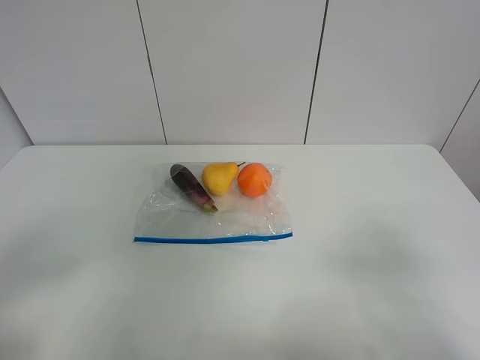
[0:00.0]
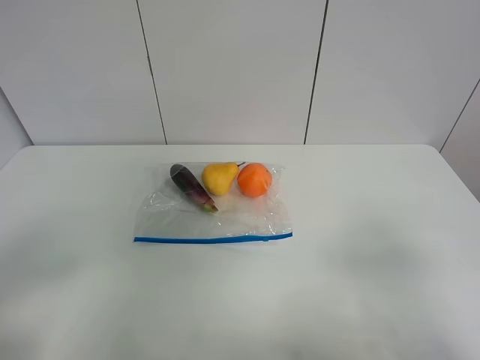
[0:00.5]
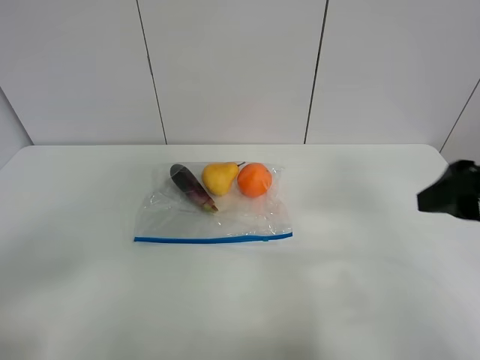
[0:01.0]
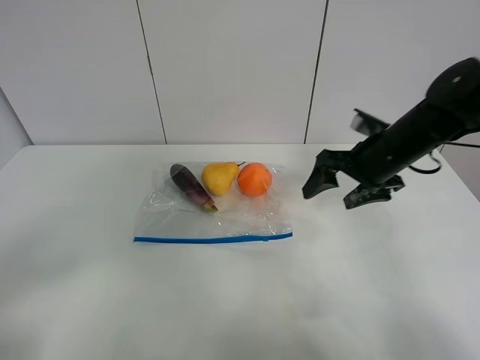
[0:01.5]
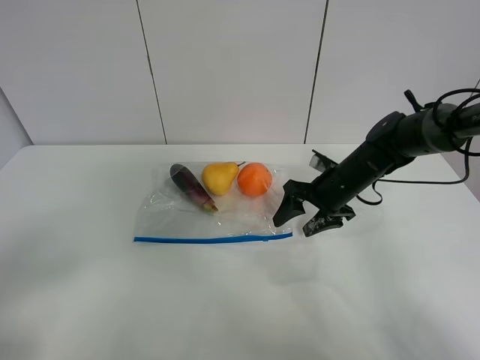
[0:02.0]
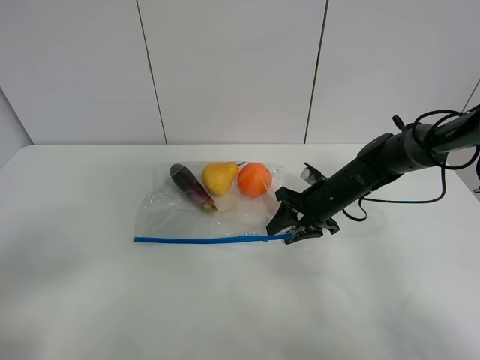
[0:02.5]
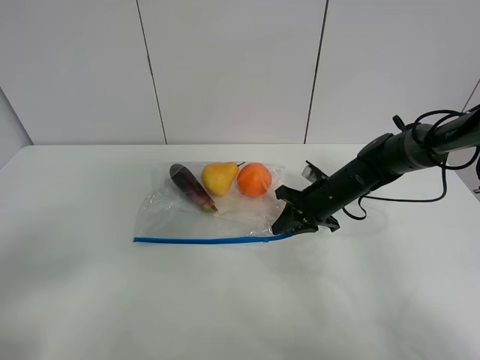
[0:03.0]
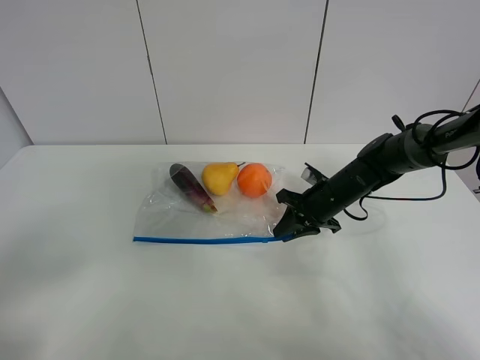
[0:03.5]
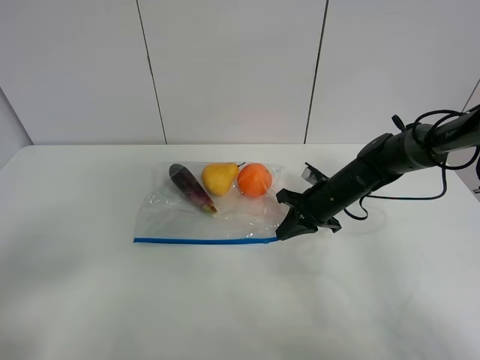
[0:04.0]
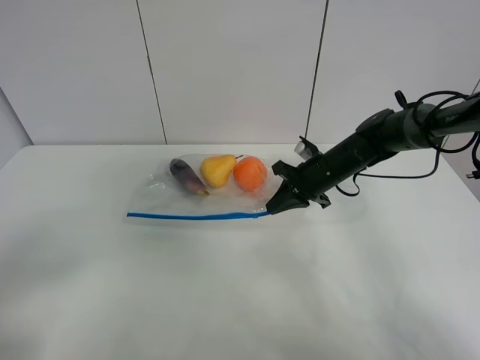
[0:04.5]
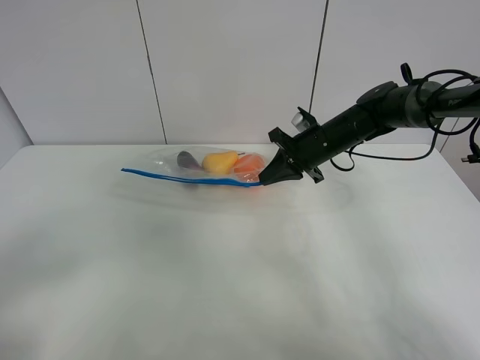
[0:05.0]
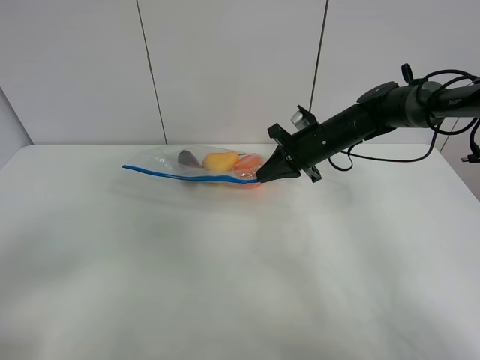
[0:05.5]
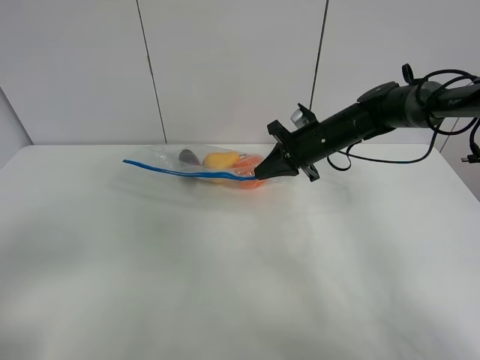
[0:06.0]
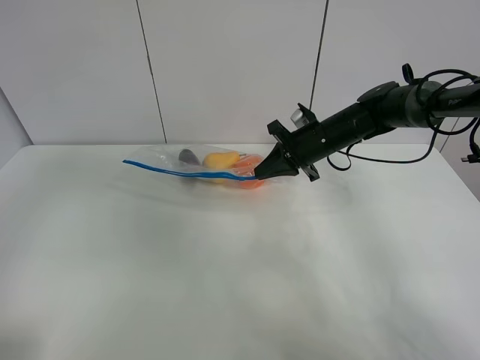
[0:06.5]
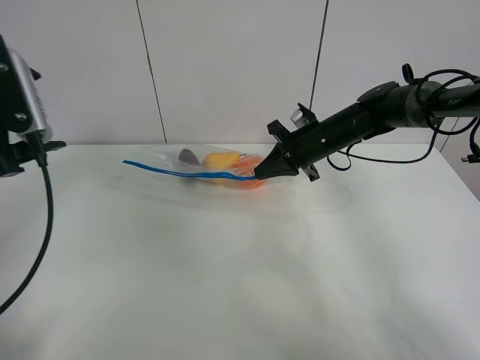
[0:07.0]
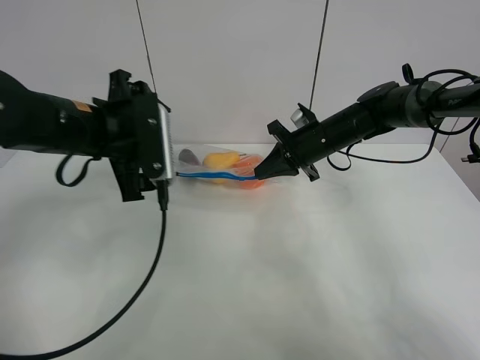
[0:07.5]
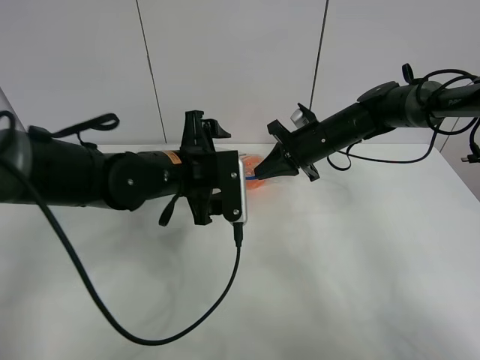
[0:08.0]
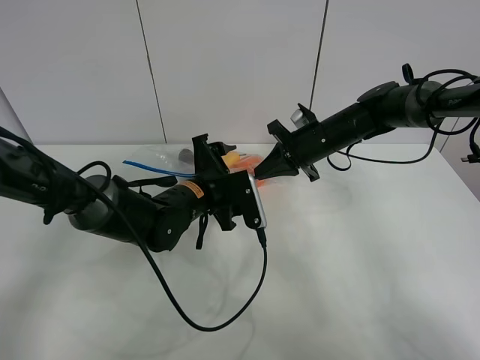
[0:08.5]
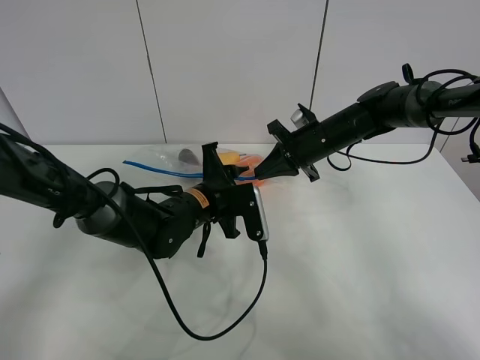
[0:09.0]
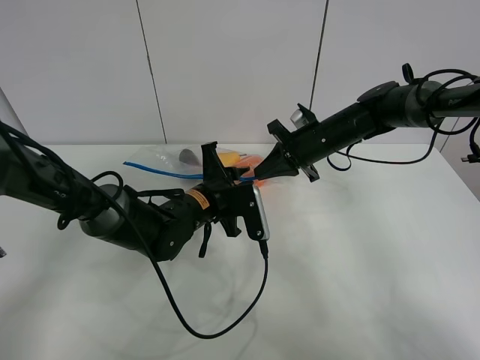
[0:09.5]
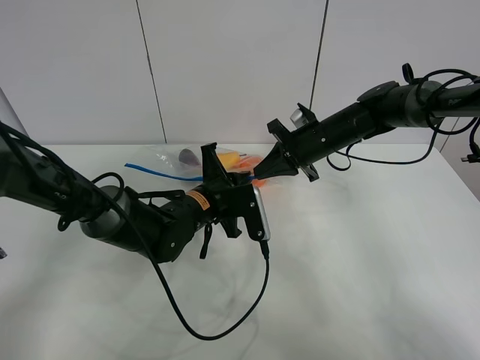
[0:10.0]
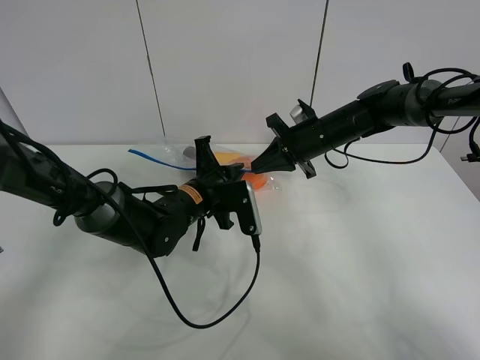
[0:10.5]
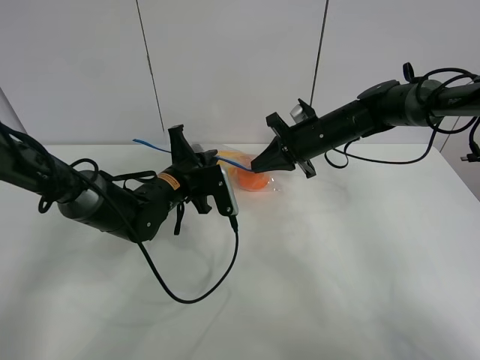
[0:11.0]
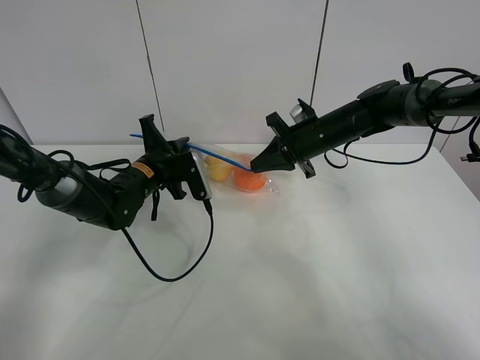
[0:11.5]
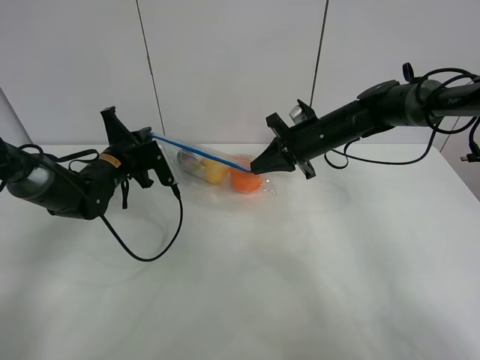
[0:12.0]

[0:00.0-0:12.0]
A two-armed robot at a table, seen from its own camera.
Step, 0:00.0 to 0:03.5: Grasp the fruit bag with right gripper.
Step, 0:04.0 to 0:05.0: Lift the fruit bag with your right gripper.
0:00.0 to 0:02.0: The right gripper is displaced forward and downward by approximately 40 cm.
0:02.0 to 0:04.0: The right gripper closes its fingers.
0:04.0 to 0:06.0: The right gripper goes roughly 10 cm upward and forward.
0:06.0 to 0:08.0: The left gripper travels forward, to the right and downward by about 40 cm.
0:08.0 to 0:10.0: The left gripper goes some 5 cm downward, and closes its fingers.
0:10.0 to 0:12.0: The left gripper shifts about 20 cm to the left and forward.

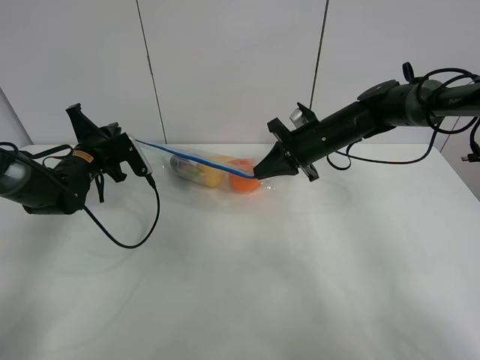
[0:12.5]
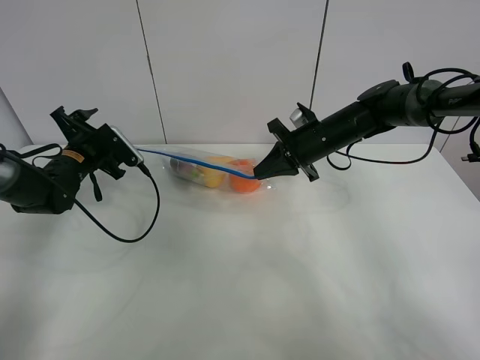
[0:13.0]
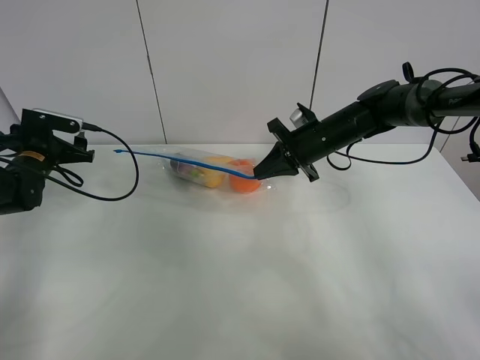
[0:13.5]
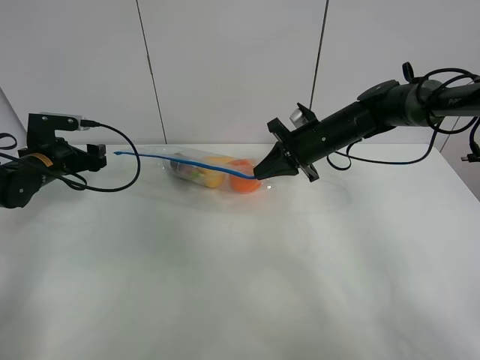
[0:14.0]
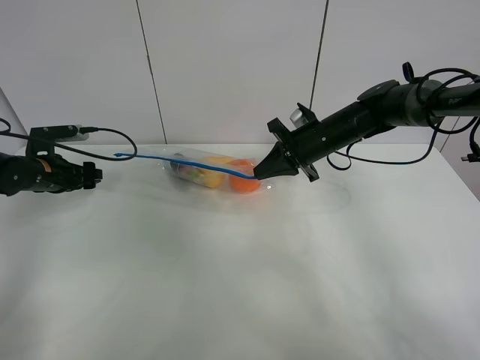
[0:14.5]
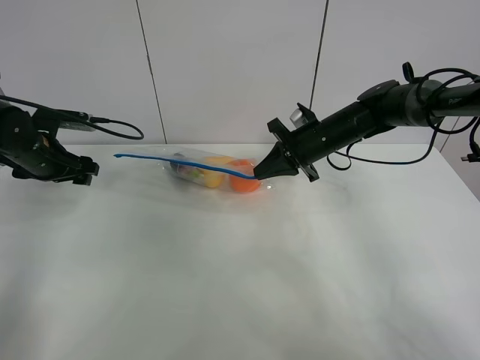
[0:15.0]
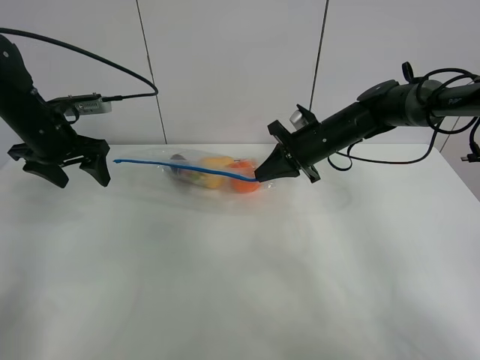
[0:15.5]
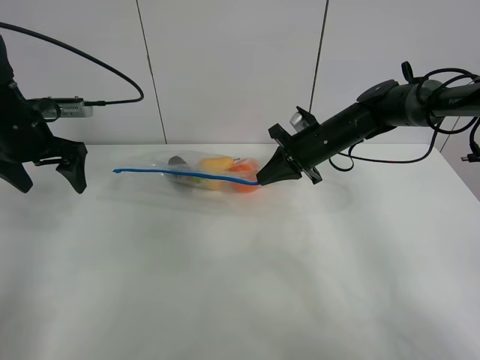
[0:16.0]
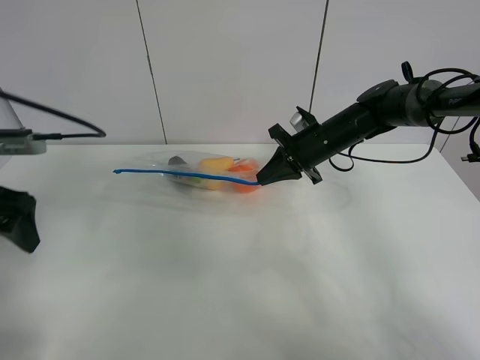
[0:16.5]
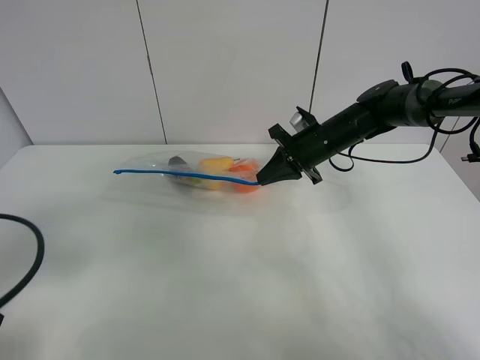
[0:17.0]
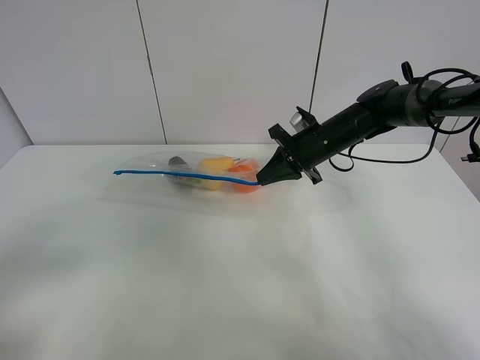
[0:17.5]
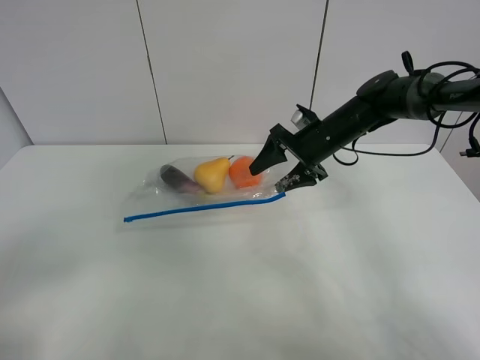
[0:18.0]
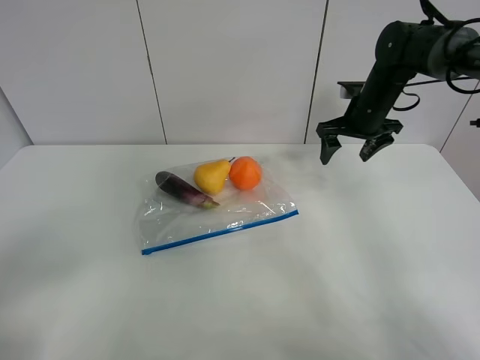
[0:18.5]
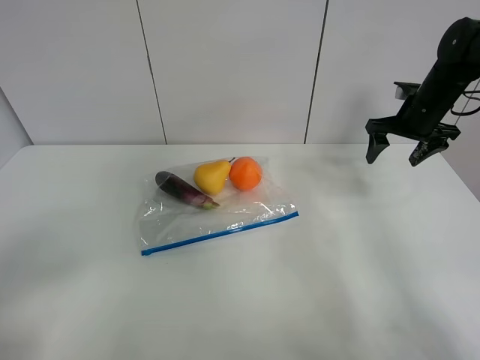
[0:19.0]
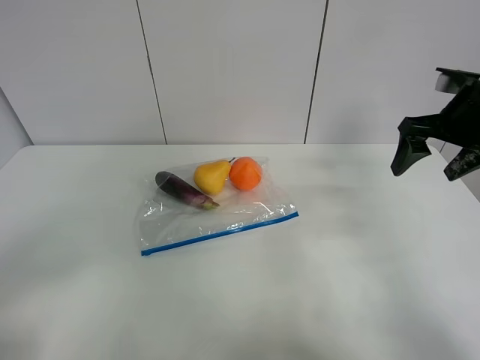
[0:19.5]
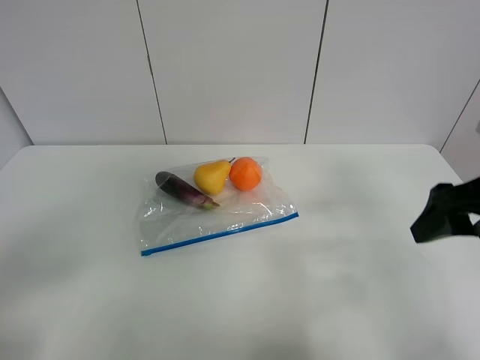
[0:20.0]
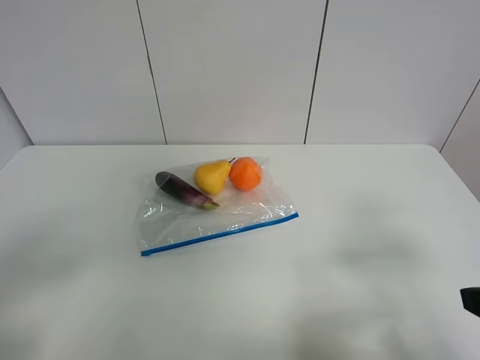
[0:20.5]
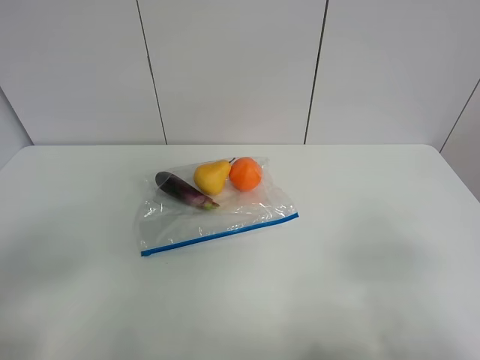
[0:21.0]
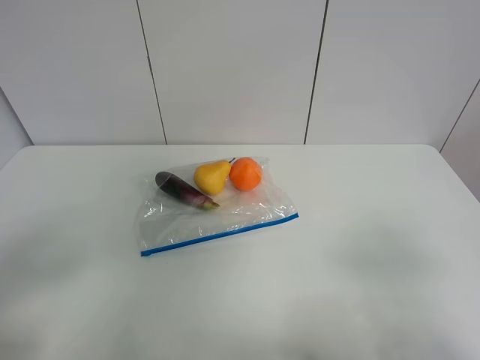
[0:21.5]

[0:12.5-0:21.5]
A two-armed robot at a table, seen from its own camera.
0:12.5 to 0:14.5: The left gripper travels to the left by some 10 cm, and opens.
0:14.5 to 0:17.0: The left gripper travels backward and upward by about 35 cm.
0:17.0 to 0:19.5: The right gripper shifts roughly 20 cm to the right, upward and backward, and opens up. The left gripper travels backward by roughly 10 cm.
0:19.5 to 0:21.5: The right gripper goes about 30 cm backward.

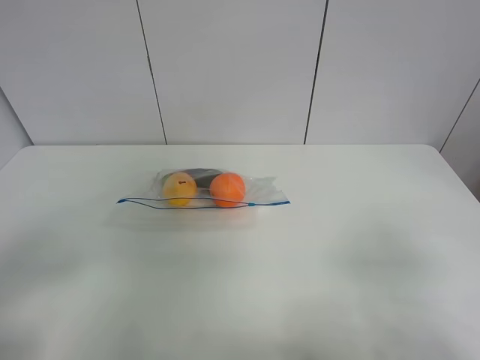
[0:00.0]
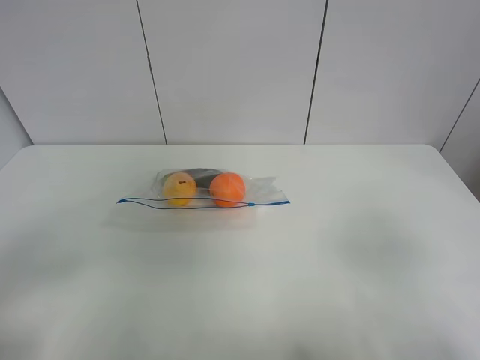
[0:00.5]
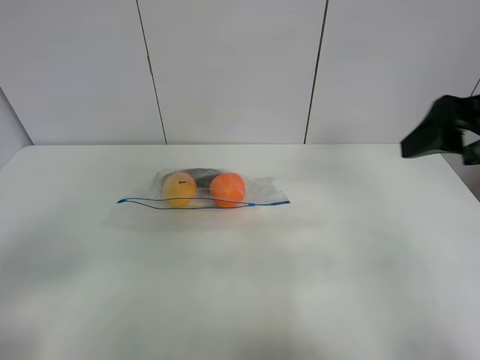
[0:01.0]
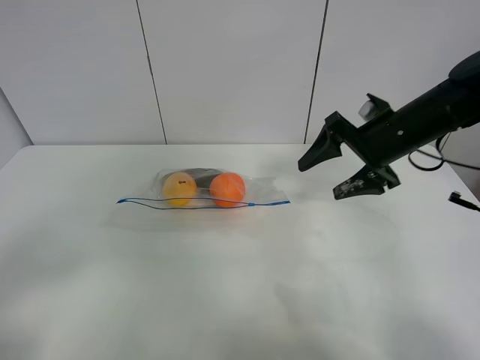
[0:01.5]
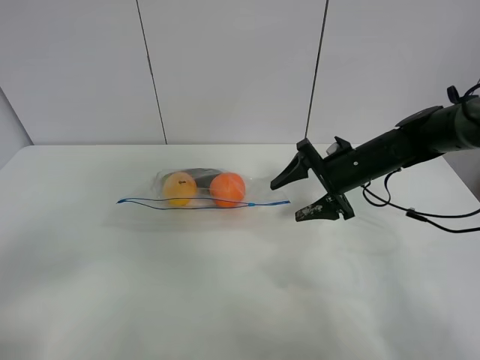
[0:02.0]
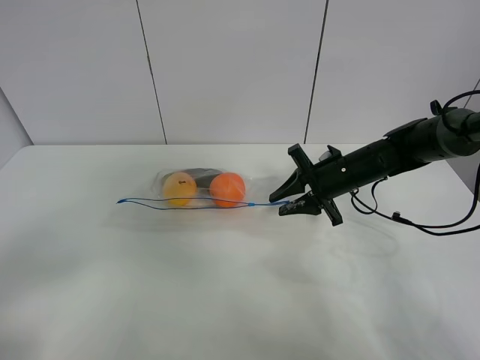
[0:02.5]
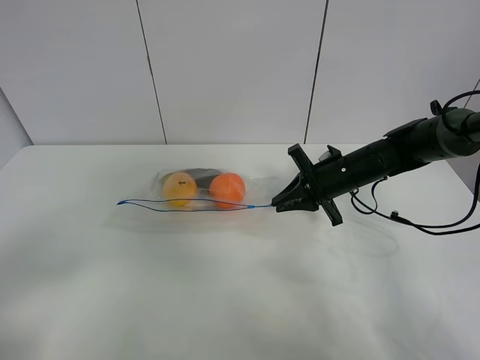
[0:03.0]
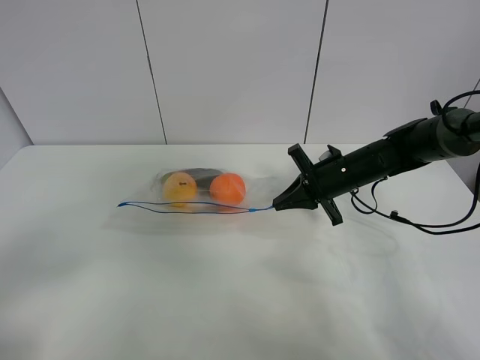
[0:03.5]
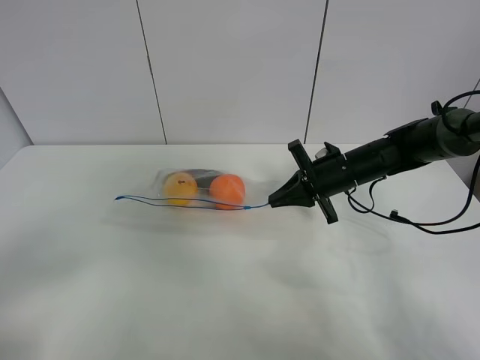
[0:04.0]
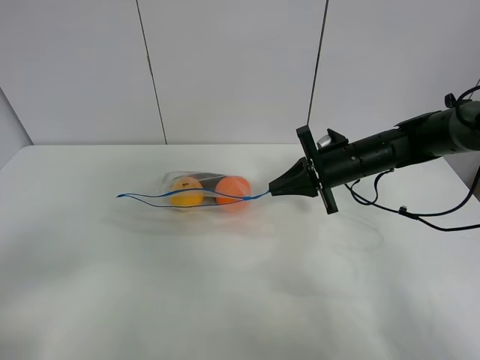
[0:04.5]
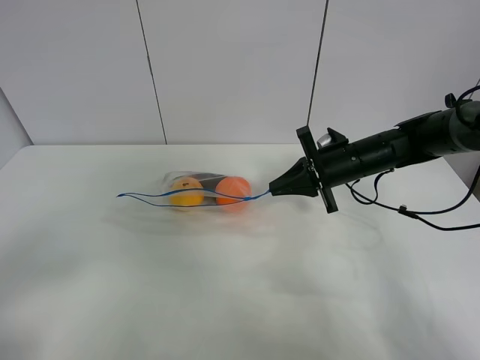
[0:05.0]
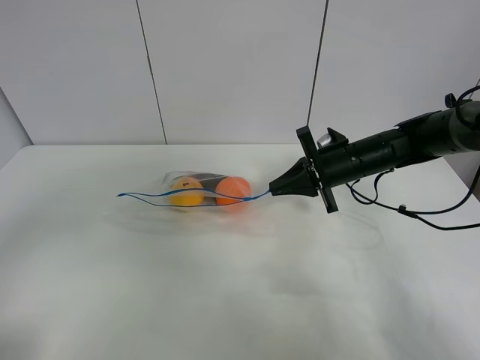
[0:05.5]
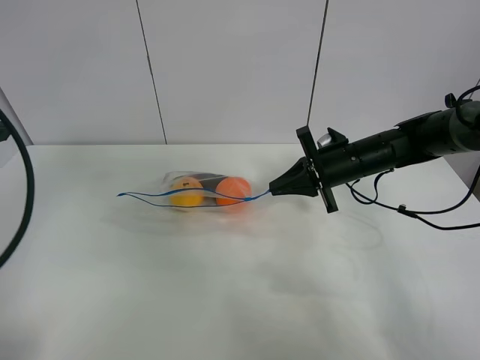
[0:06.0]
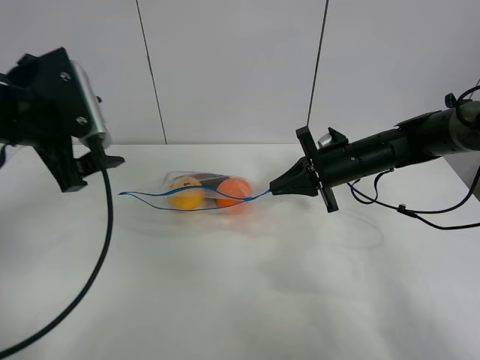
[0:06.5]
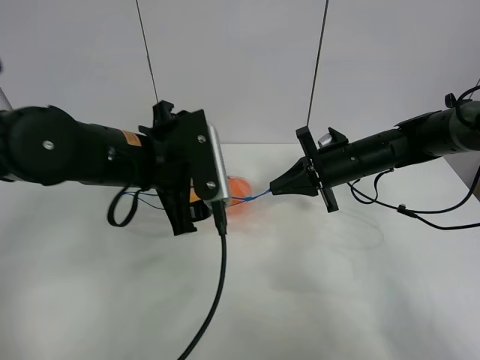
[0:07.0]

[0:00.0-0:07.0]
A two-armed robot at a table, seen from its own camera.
Step, 0:00.0 to 0:03.5: Grasp the fruit bag with right gripper.
Step, 0:04.0 to 0:04.5: Lift the fruit bag with your right gripper.
0:00.0 to 0:02.0: The right gripper goes some 35 cm forward.
0:02.0 to 0:03.5: The right gripper closes.
0:03.5 to 0:05.0: The grippers stay close to where they were, moving slightly.
0:05.0 to 0:07.0: The left gripper shifts approximately 30 cm forward and to the right.
